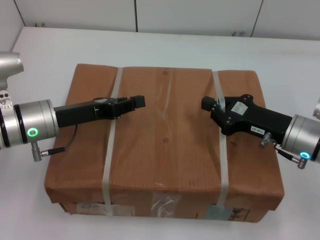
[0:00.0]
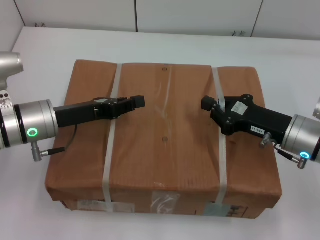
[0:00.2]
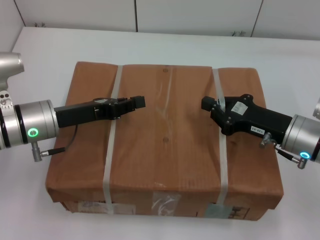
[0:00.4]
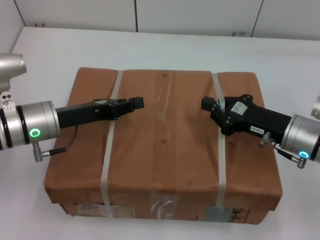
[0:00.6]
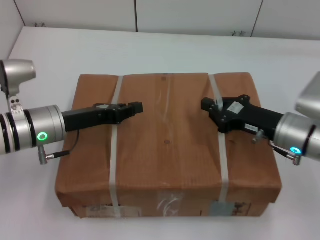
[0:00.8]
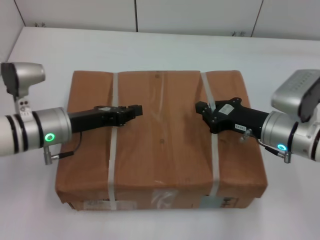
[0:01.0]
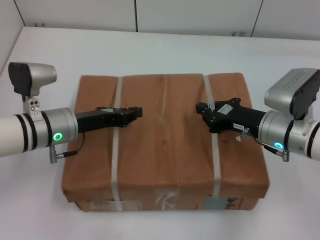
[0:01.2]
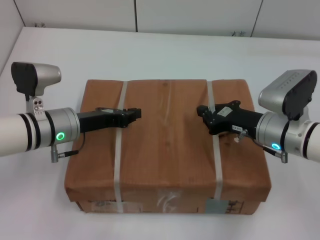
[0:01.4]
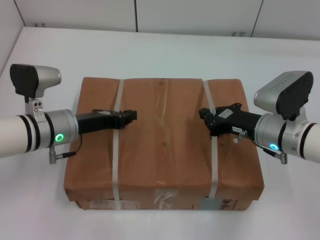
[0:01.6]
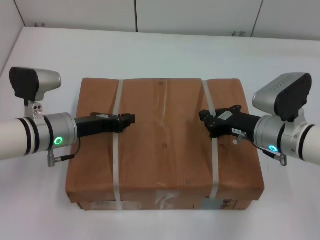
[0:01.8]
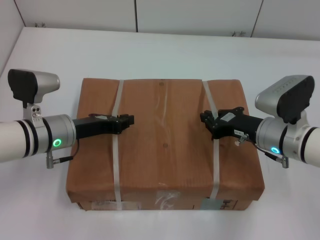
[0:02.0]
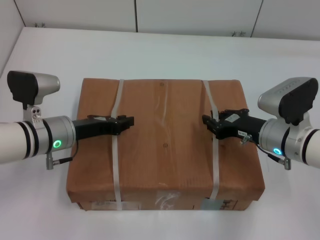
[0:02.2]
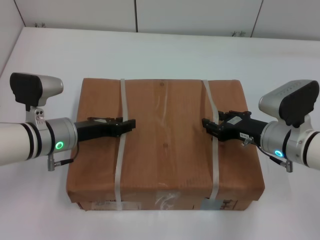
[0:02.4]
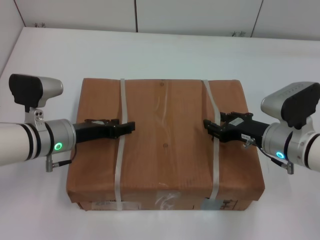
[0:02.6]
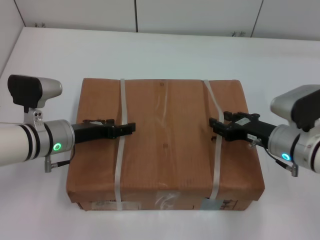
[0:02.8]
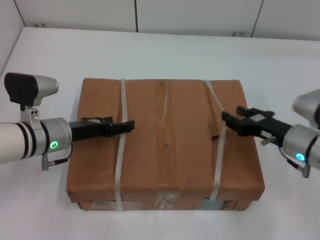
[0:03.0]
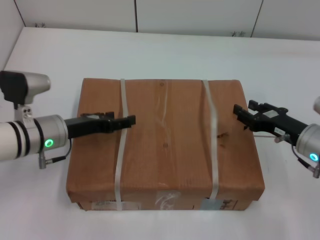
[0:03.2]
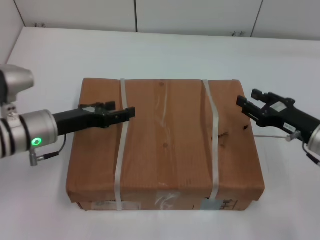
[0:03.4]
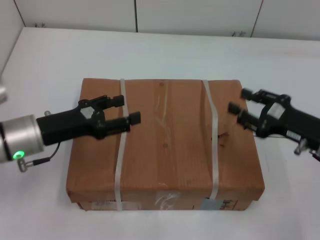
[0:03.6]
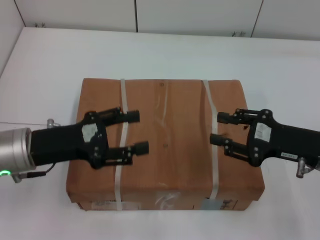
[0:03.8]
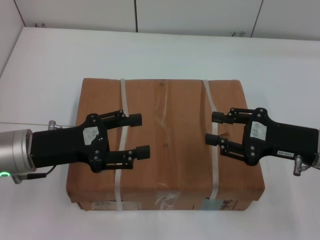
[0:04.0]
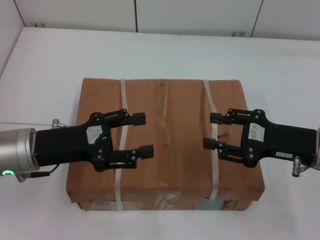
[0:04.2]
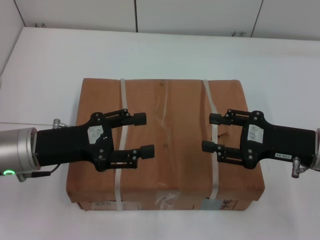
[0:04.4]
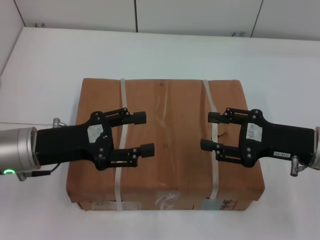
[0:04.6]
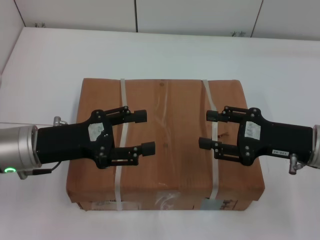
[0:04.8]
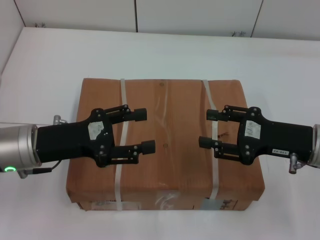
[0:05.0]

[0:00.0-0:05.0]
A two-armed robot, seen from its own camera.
Task of the whole recording: place the box on the table with both arms.
Step, 0:00.0 to 0:01.6: Place the box on the table with left gripper.
Step, 0:00.0 to 0:01.6: Place the box on the table with right gripper.
Step, 0:01.8 to 0:02.8: Loosen the box on the table with left gripper.
Step, 0:01.8 to 0:02.8: Loosen the box on the table with right gripper.
0:00.0 to 0:01.6: The right gripper changes place by approximately 5 cm.
0:01.6 to 0:03.4: The left gripper opens up; the right gripper is displaced to the right by about 10 cm, and opens up.
0:03.4 to 0:05.0: The left gripper travels backward by approximately 5 cm. Meanwhile the right gripper ends up roughly 5 cm from where it was.
